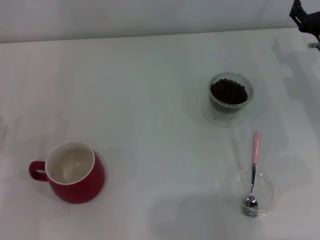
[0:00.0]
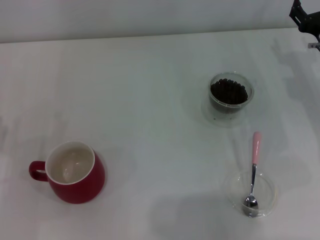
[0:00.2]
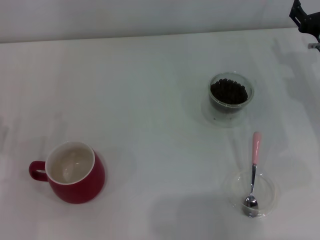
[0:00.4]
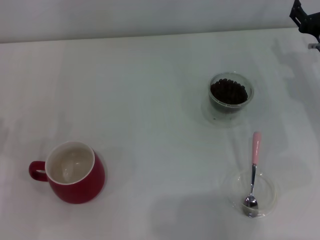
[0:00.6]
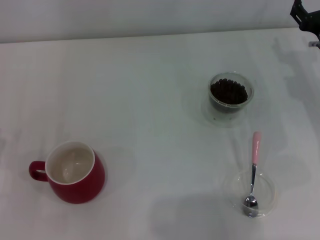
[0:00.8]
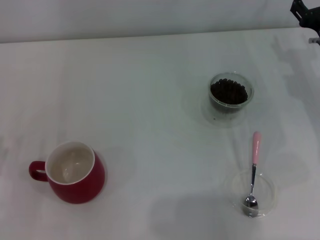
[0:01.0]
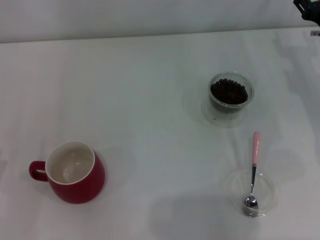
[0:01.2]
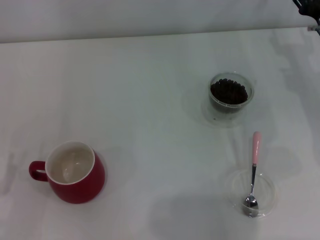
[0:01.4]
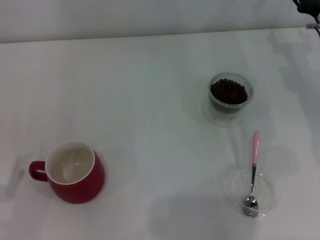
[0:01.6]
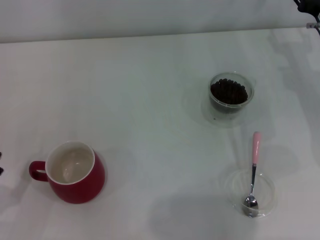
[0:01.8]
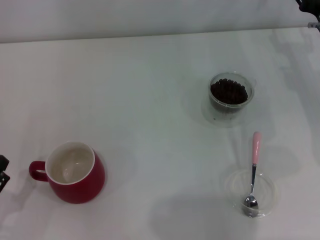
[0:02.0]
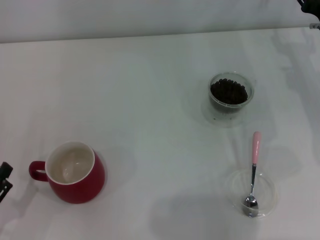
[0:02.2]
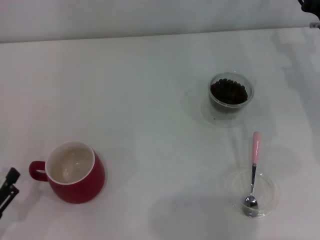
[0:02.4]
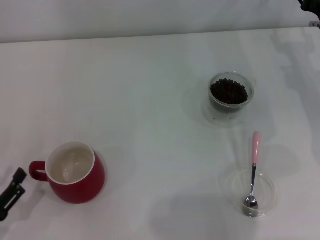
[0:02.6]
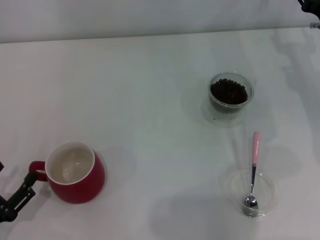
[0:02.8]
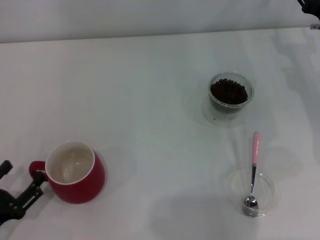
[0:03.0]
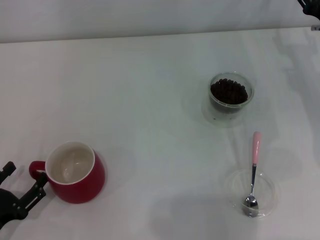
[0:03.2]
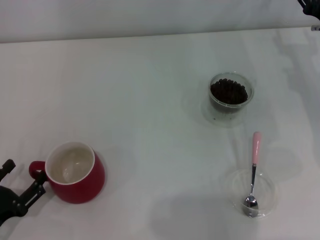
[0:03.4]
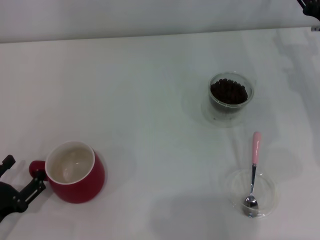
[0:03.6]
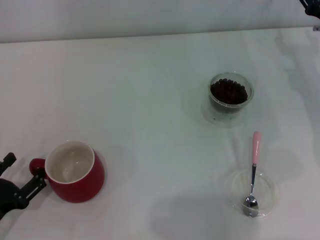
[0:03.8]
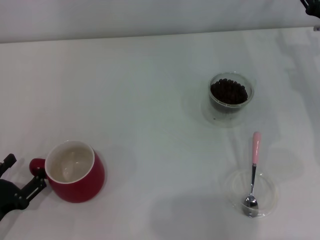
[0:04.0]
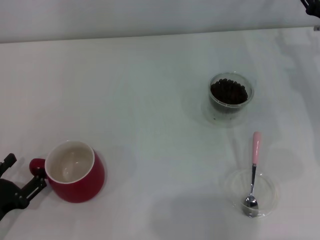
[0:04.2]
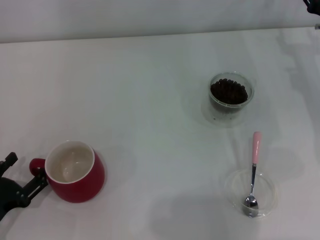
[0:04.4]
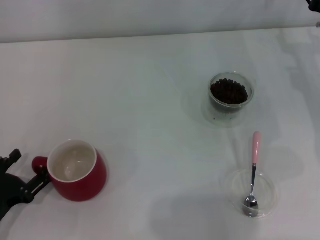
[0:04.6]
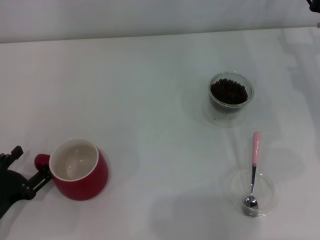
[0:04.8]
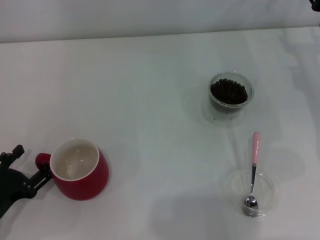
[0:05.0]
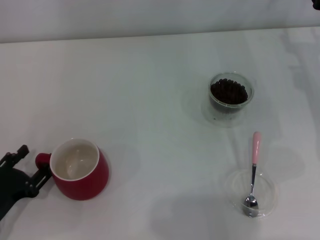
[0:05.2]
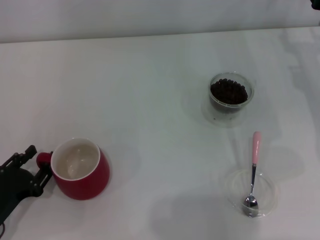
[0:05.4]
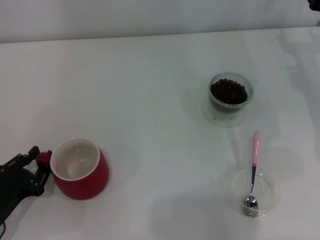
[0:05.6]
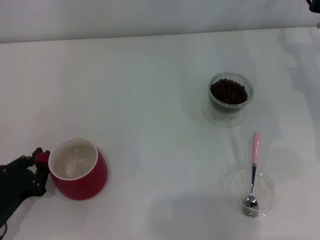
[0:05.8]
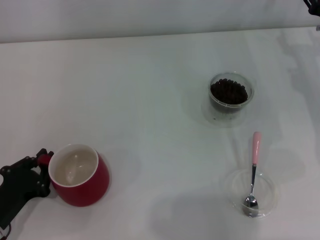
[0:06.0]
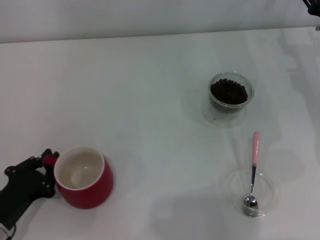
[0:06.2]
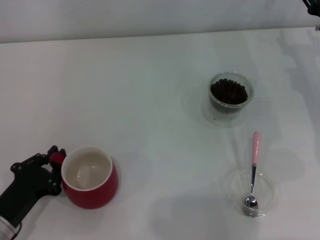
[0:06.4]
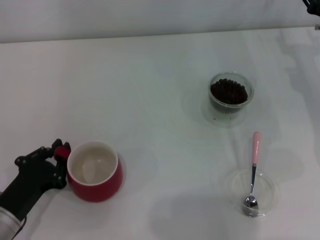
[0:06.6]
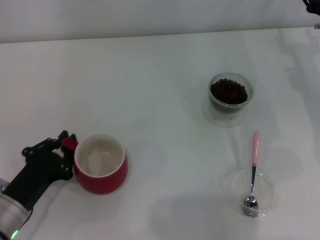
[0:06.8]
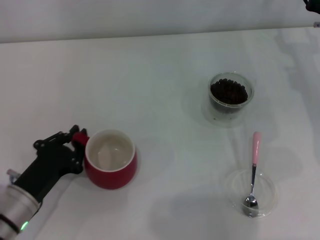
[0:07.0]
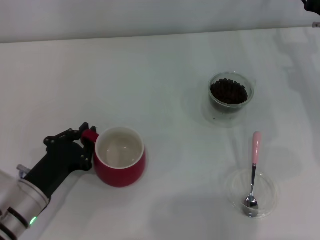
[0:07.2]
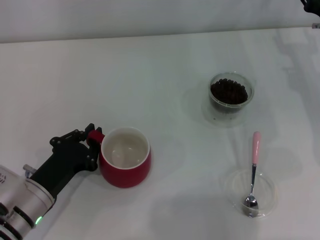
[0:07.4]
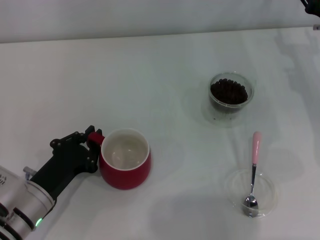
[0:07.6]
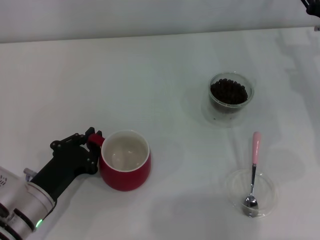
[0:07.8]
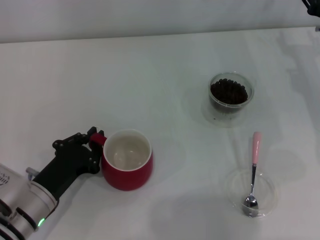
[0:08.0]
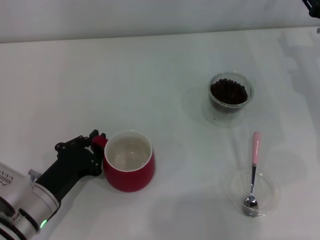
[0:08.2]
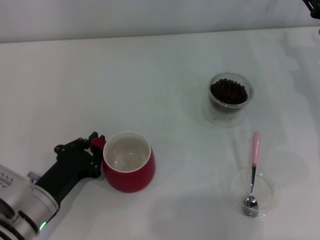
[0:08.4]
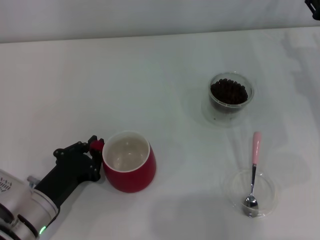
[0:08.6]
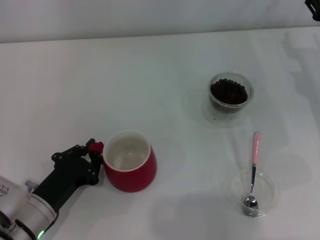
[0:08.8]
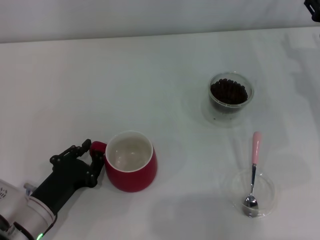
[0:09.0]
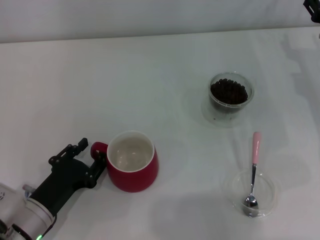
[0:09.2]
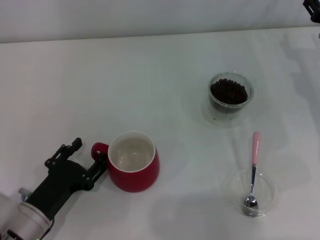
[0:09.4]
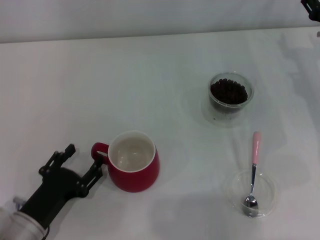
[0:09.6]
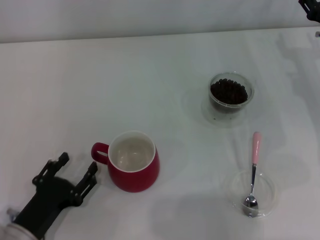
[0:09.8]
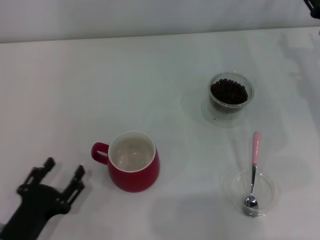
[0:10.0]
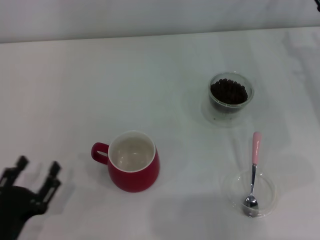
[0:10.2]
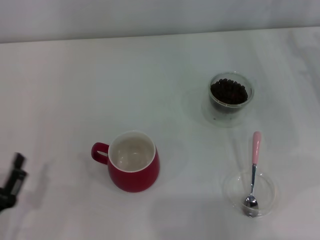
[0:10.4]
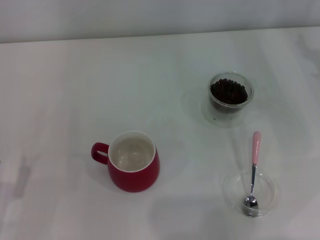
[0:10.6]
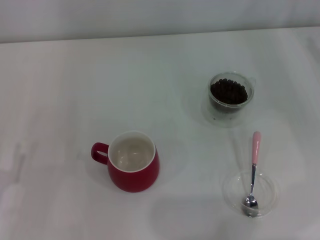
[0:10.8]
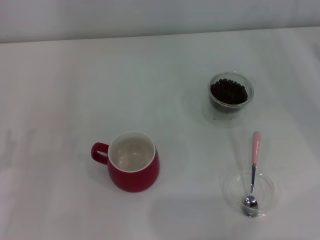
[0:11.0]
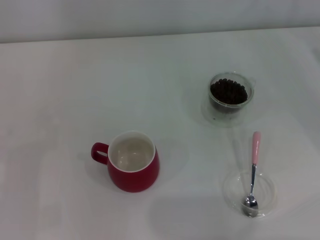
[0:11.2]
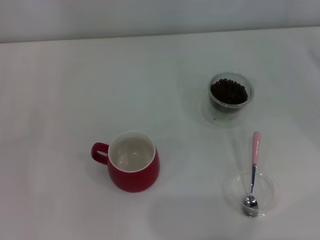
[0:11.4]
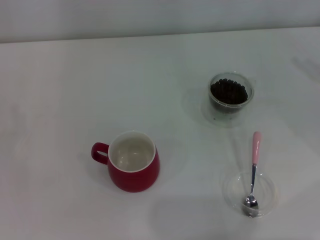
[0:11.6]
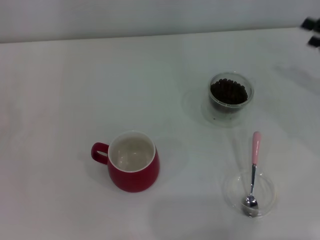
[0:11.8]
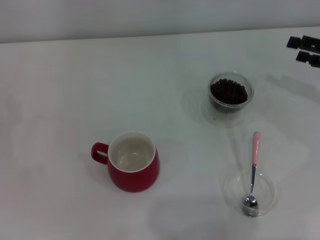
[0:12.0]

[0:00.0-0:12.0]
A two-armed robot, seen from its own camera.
Task of the whole recording: Use a pink spoon to take out the coffee beans from the glass and pour them into the red cup.
Step, 0:00.0 to 0:09.8: Move the cup to the center of view with the left gripper.
0:03.0 to 0:04.4: The grippers make only small movements.
0:04.4 to 0:06.0: The left gripper closes.
0:06.0 to 0:07.6: The left gripper travels to the right by roughly 5 cm.
0:07.6 to 0:09.0: There are only small adjustments of the grippers.
0:09.0 to 0:10.4: The left gripper travels backward and to the left by roughly 10 cm, and opens its fingers.
0:10.4 to 0:12.0: The left gripper moves forward and to the left, roughly 15 cm, while the right gripper heads to the right, covering some 5 cm.

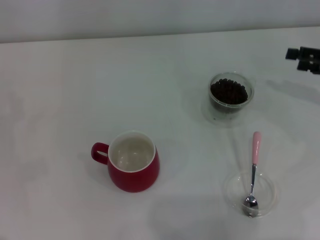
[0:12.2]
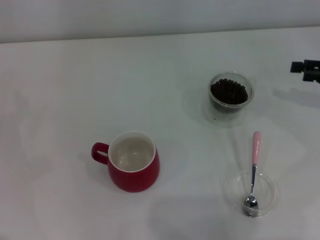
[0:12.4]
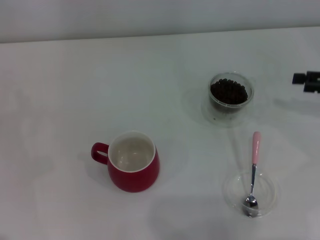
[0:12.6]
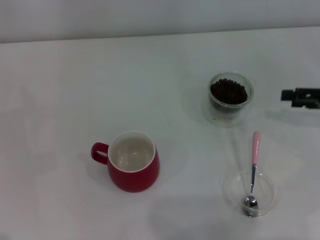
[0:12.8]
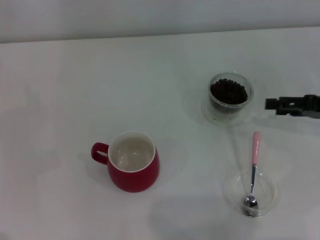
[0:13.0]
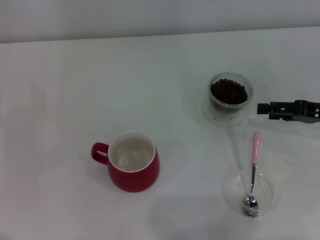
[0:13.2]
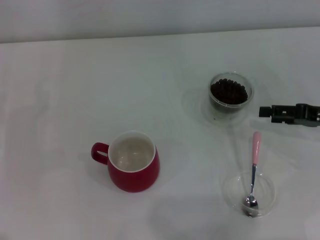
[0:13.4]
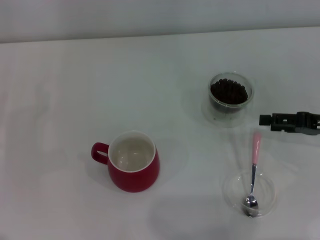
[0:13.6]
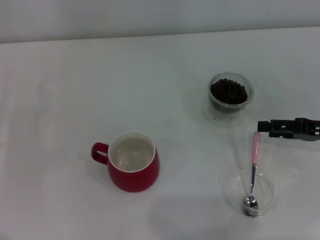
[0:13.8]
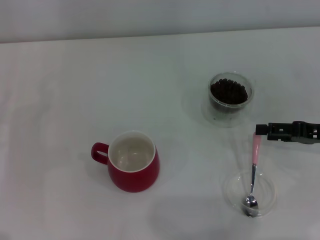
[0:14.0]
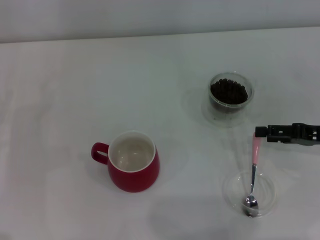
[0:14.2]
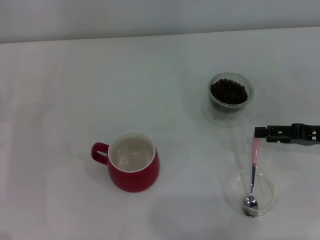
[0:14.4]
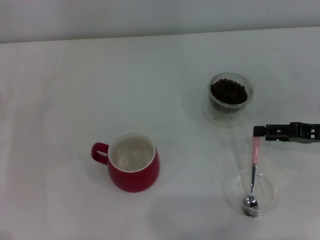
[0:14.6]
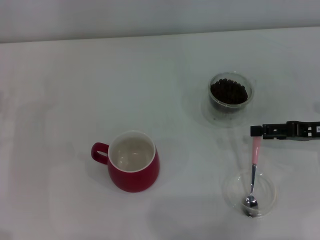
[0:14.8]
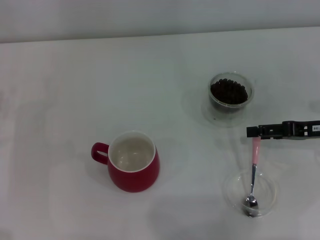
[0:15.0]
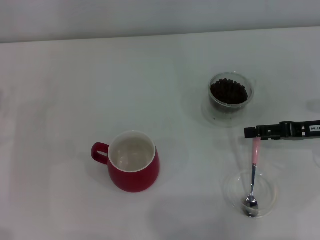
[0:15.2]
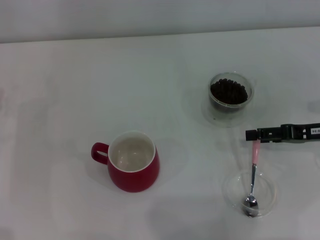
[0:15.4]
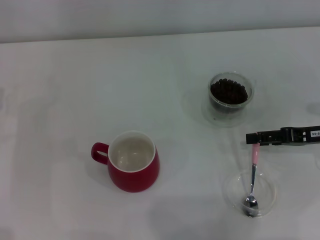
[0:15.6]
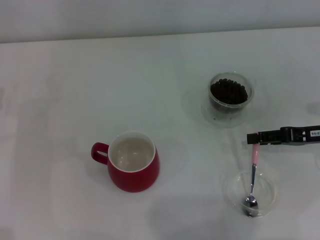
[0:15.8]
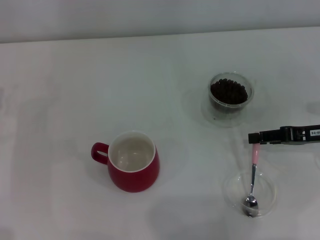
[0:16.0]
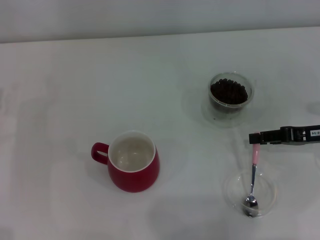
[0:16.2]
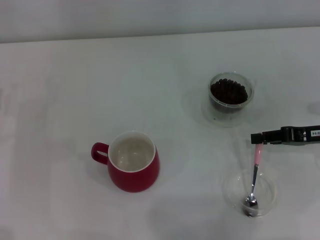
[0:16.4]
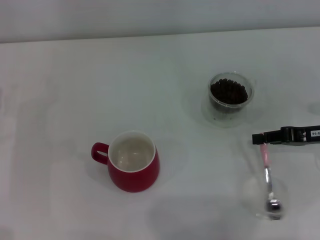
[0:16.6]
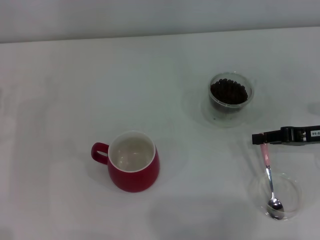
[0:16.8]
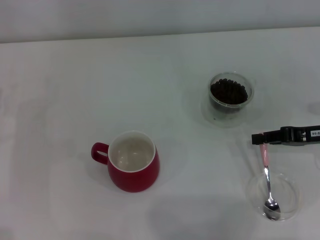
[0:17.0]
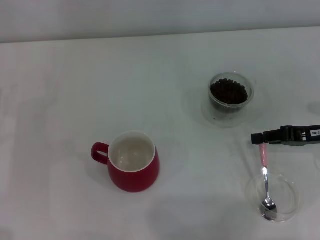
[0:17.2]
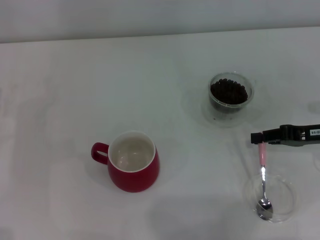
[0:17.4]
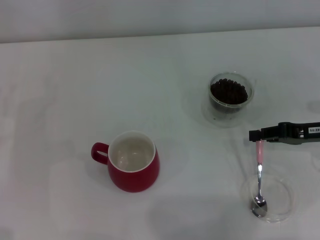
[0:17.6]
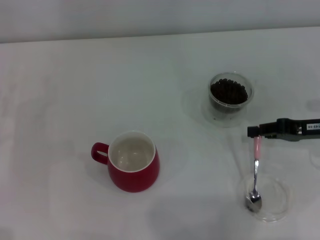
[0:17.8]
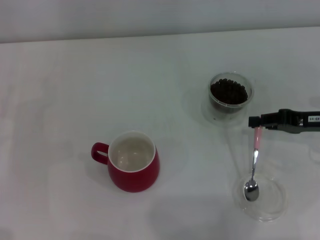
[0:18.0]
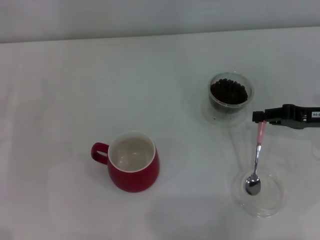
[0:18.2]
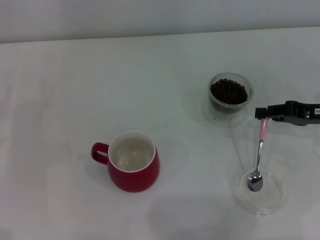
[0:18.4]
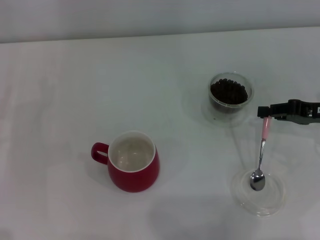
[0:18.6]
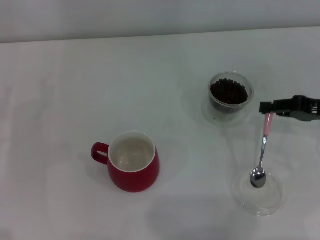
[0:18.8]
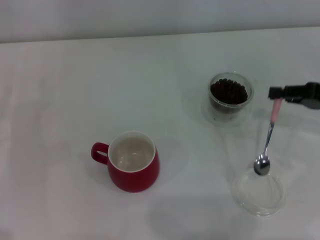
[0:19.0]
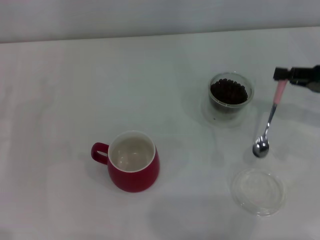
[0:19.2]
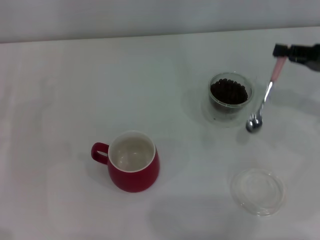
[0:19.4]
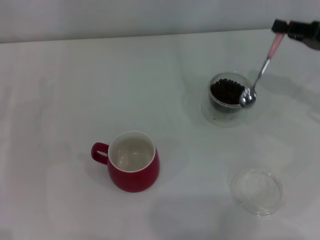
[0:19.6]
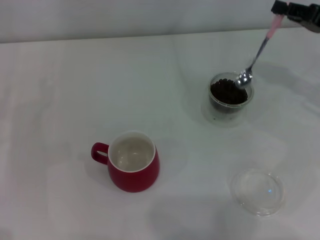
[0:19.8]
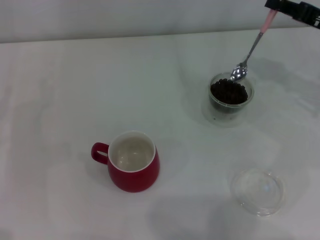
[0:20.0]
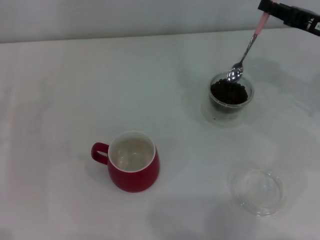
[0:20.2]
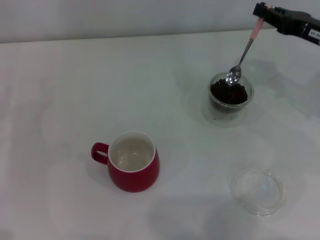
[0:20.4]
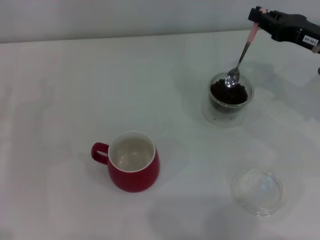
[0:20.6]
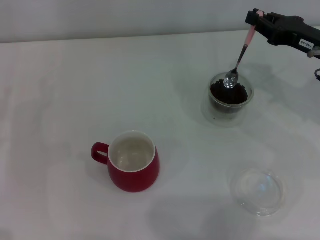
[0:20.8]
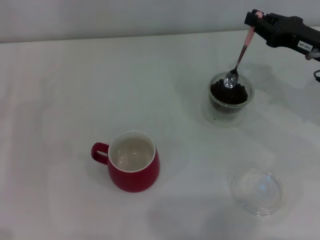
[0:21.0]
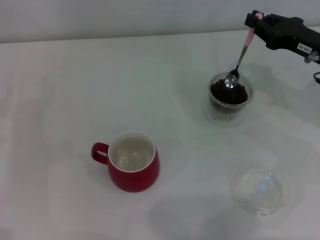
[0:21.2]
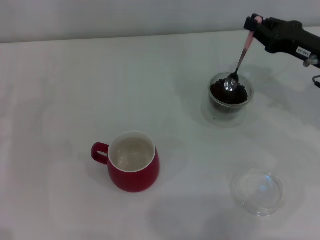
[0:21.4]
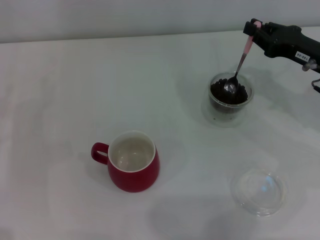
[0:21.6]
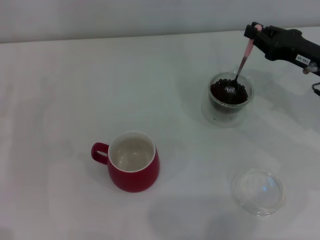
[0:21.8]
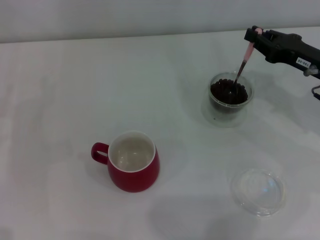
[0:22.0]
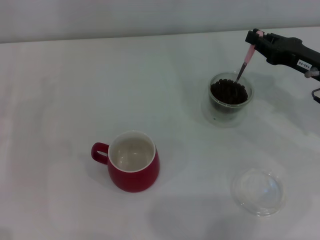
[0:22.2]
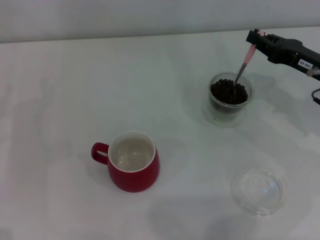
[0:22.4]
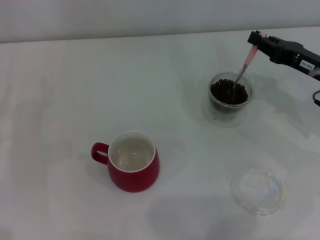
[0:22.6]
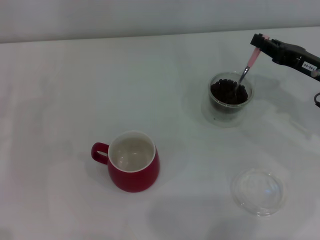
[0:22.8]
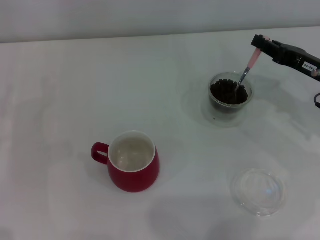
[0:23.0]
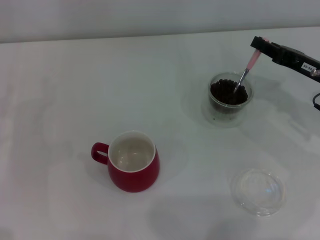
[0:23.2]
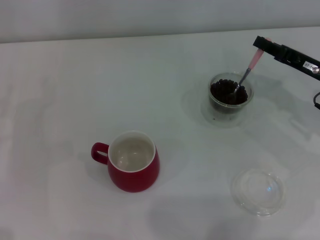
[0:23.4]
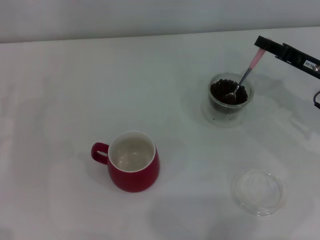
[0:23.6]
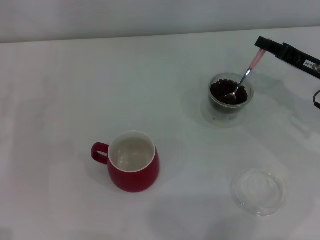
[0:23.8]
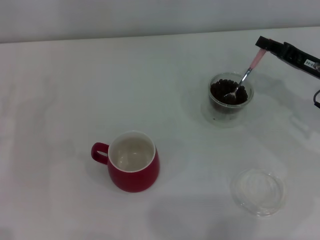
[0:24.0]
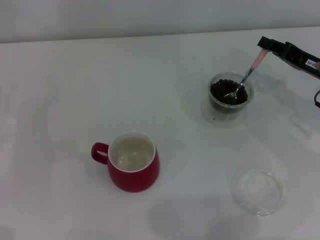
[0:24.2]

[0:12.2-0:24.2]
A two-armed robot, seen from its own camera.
Task of the whole recording: Use a pink spoon to take out the coffee beans from the glass and pour them into the red cup.
Step, 0:12.2 to 0:19.0: Pick up the spoon with the right gripper.
0:12.2 to 0:13.8: The right gripper heads backward, covering some 5 cm.
0:13.8 to 0:15.2: The grippers stay close to where they were, moving slightly.
0:15.2 to 0:16.6: The right gripper closes up.
0:16.6 to 0:18.2: The grippers move only a little.
0:18.2 to 0:19.8: The right gripper goes some 5 cm upward.
0:19.8 to 0:21.2: The right gripper shifts by some 5 cm.
0:21.2 to 0:22.6: There are only small adjustments of the grippers.
0:22.6 to 0:24.2: The grippers move only a little.
